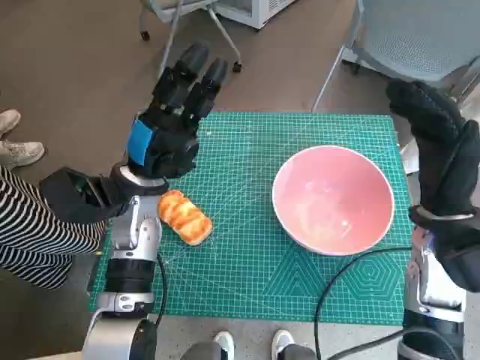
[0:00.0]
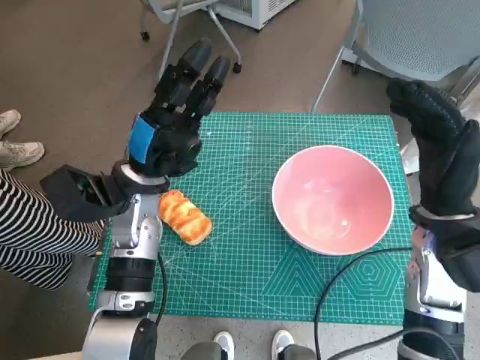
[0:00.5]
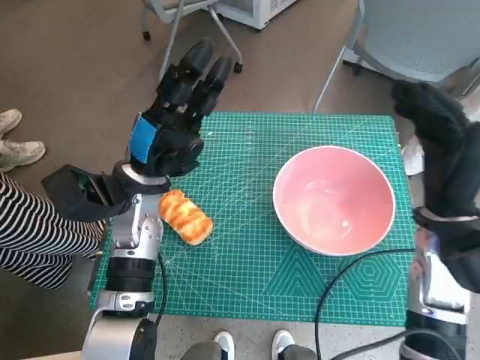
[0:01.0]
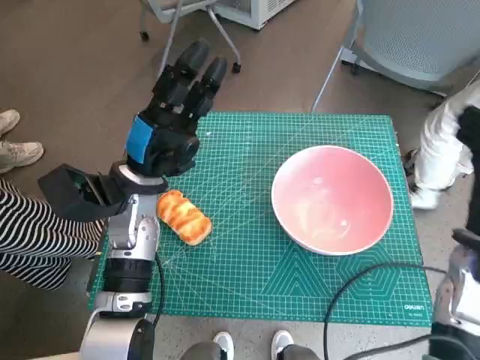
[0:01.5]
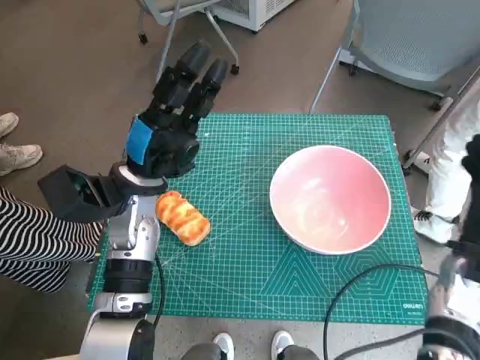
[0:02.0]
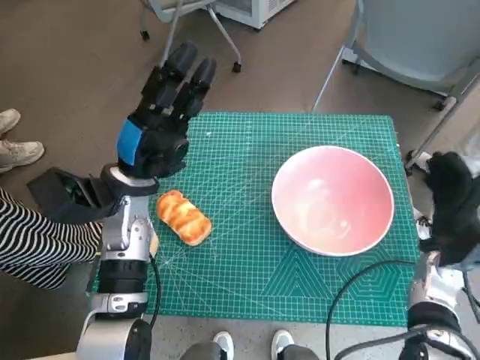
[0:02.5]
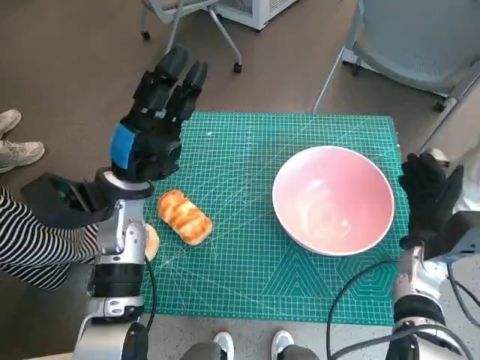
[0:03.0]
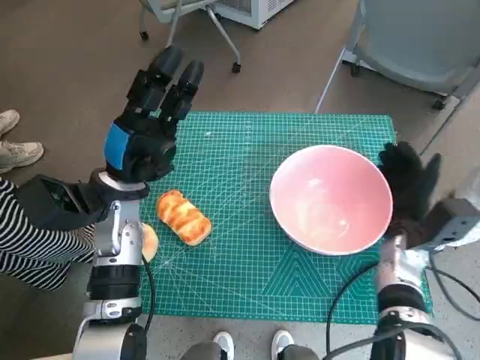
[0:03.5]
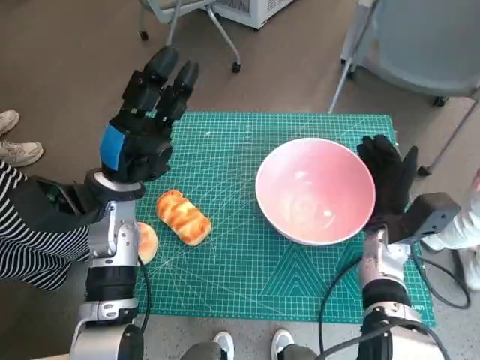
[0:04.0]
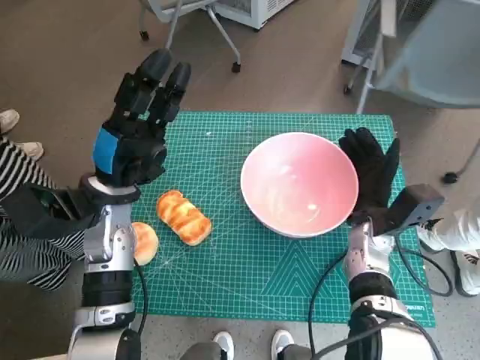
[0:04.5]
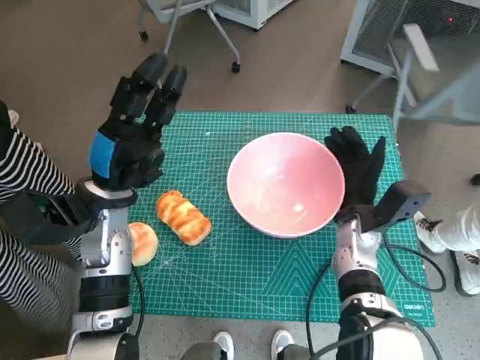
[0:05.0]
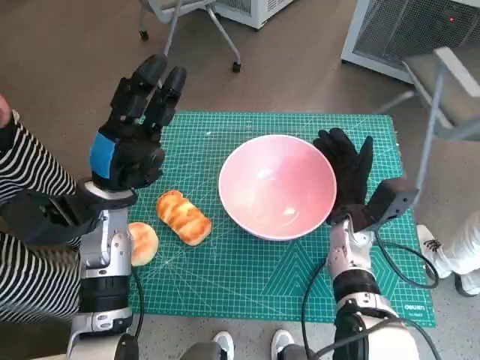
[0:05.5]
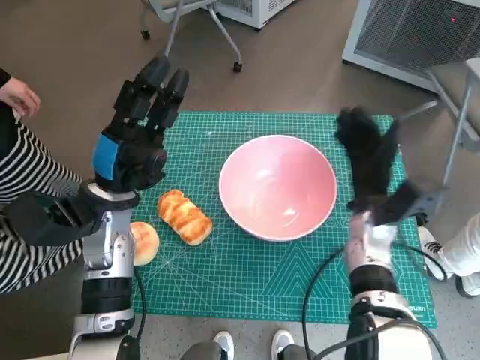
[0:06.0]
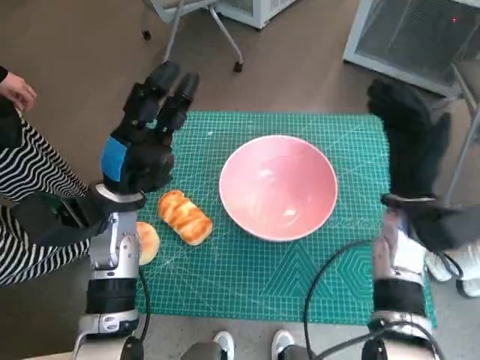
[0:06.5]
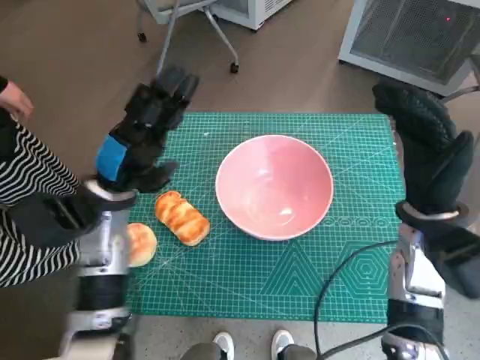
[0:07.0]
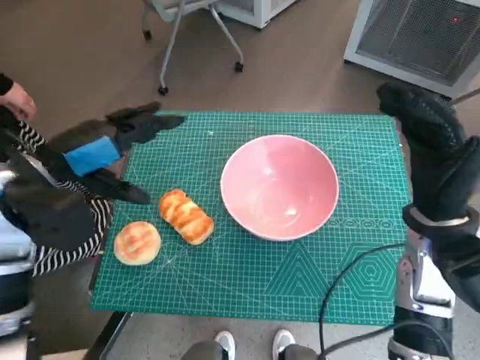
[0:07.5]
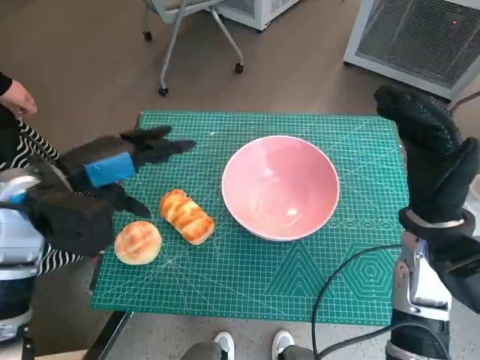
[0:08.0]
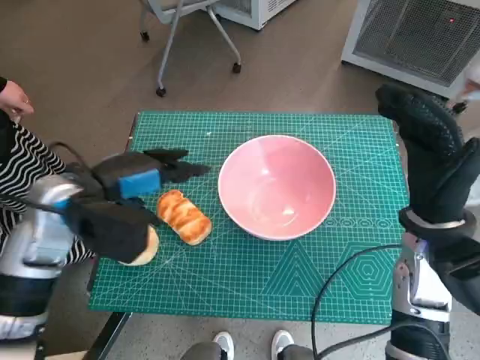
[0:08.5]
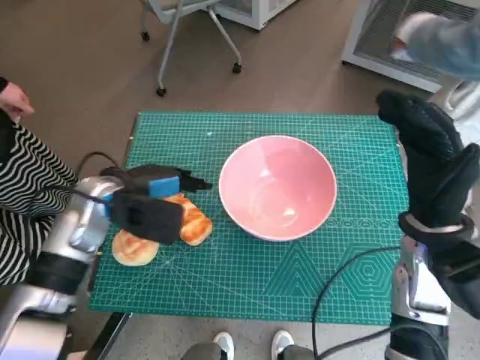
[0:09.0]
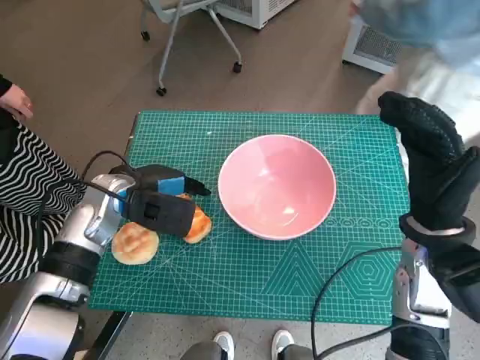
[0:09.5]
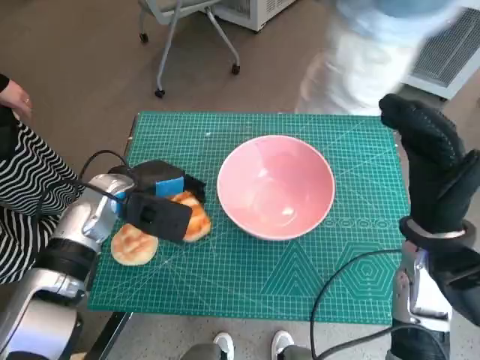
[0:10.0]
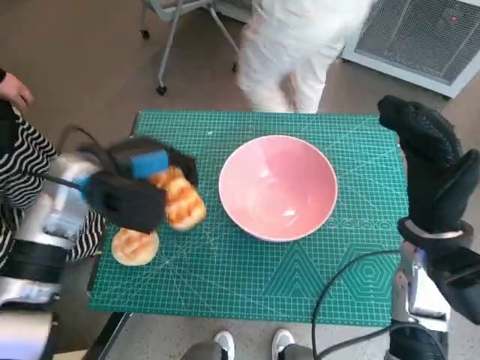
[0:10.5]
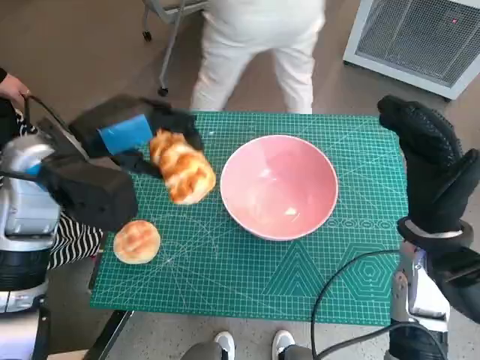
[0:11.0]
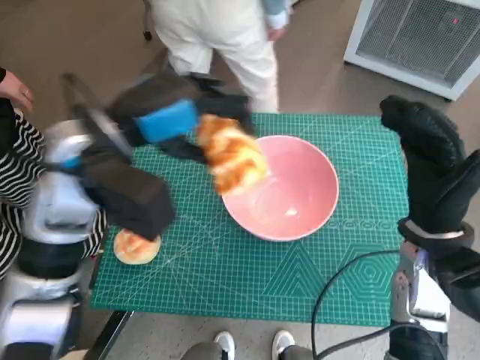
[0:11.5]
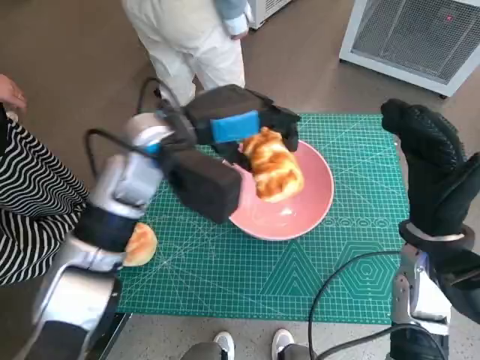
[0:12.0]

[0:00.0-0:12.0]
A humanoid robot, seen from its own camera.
Task of the whole recording: Push the bowl into the center of the table and put the bread into the bowl.
Step, 0:00.0 to 0:05.5: Move the pink bowl to the center of table with right hand.
Step, 0:06.0 to 0:09.5: Grasp the long bread with left hand.
0:02.0 to 0:04.0: The right hand travels to the left by some 10 cm.
0:06.0 to 0:08.0: The left hand is displaced upward by some 10 cm; the right hand travels upward and backward by about 10 cm.
0:08.0 to 0:10.0: The left hand is displaced downward and forward by about 10 cm.
0:10.0 to 0:12.0: The left hand moves upward and to the right, some 15 cm.

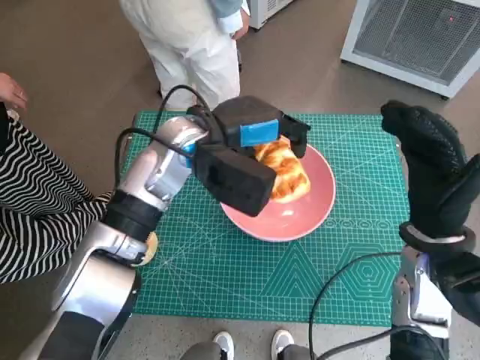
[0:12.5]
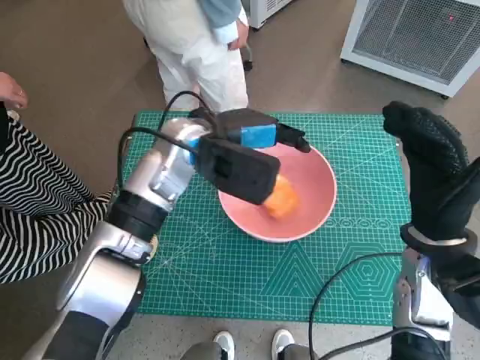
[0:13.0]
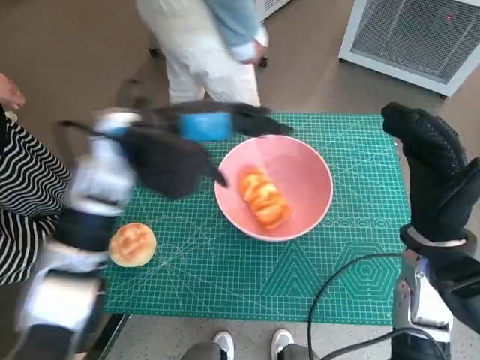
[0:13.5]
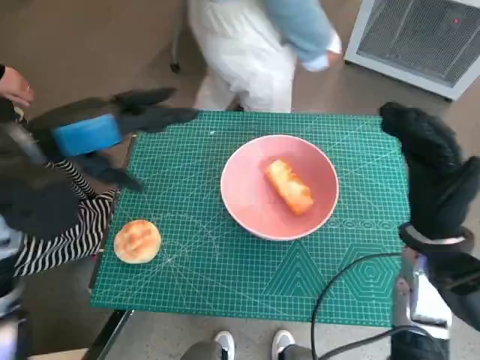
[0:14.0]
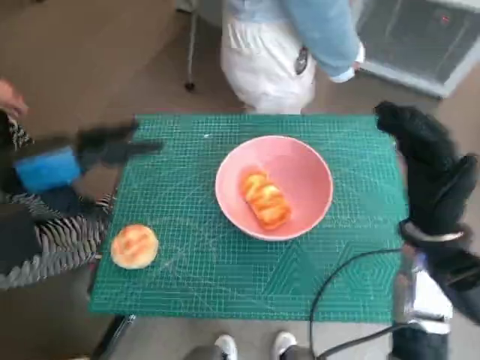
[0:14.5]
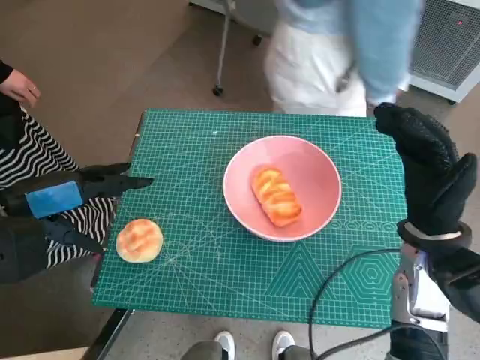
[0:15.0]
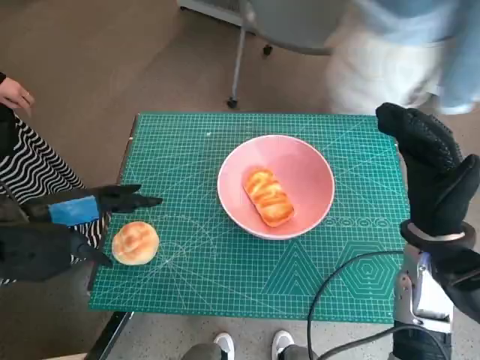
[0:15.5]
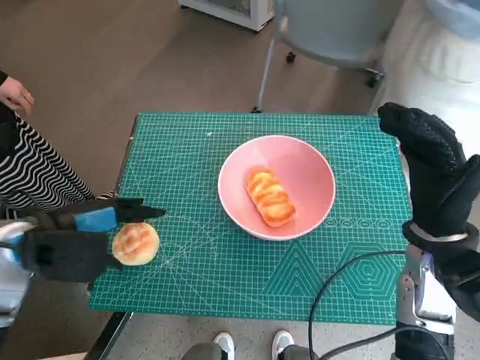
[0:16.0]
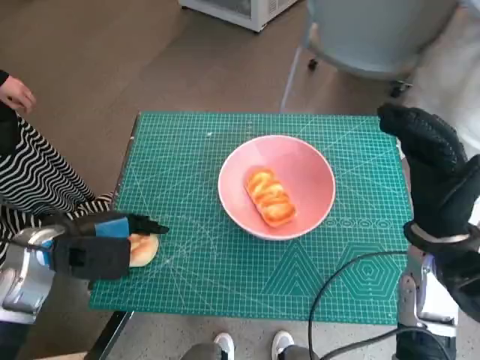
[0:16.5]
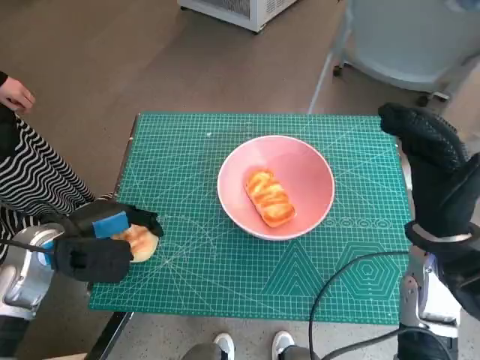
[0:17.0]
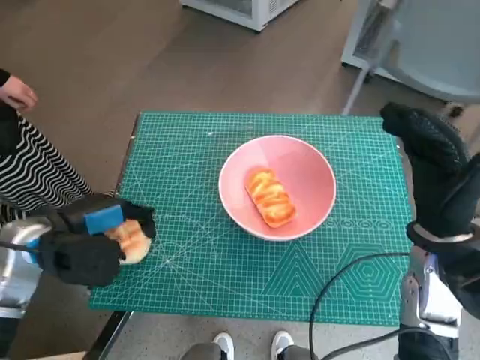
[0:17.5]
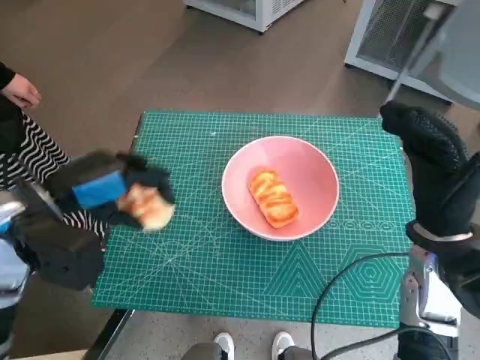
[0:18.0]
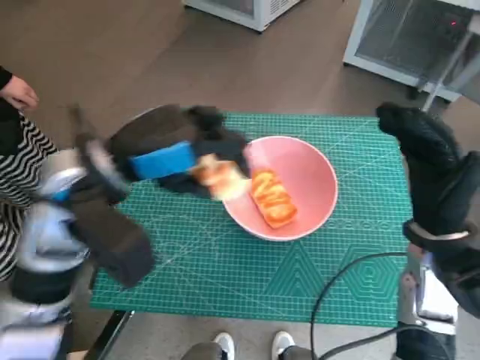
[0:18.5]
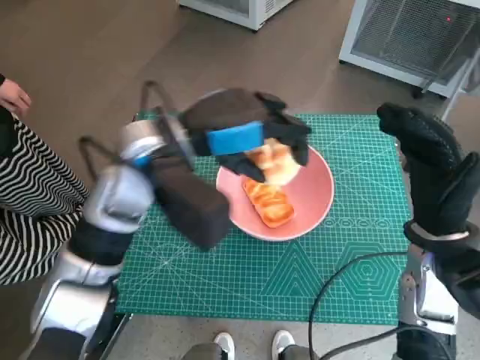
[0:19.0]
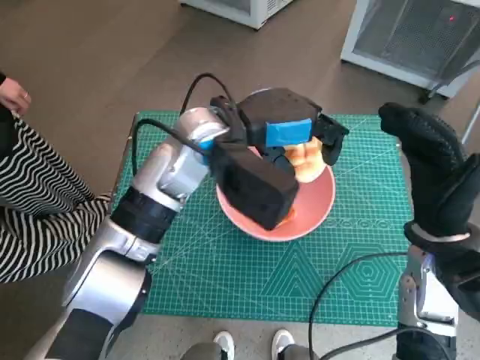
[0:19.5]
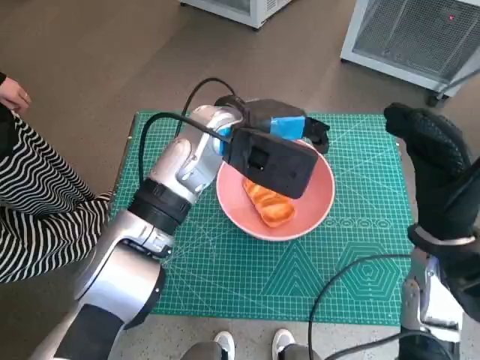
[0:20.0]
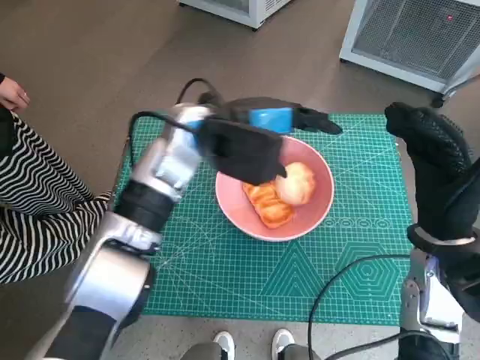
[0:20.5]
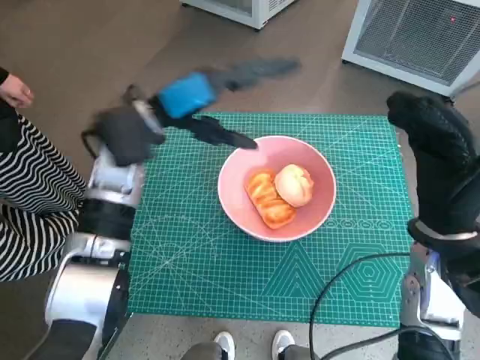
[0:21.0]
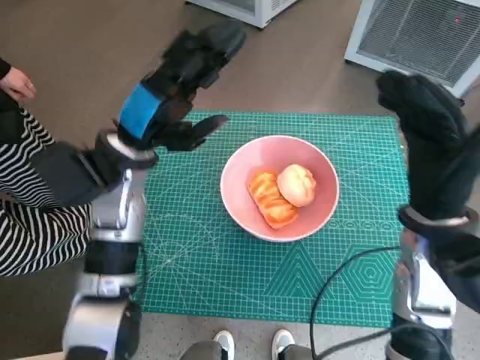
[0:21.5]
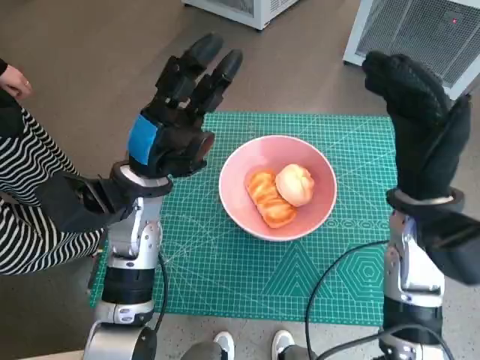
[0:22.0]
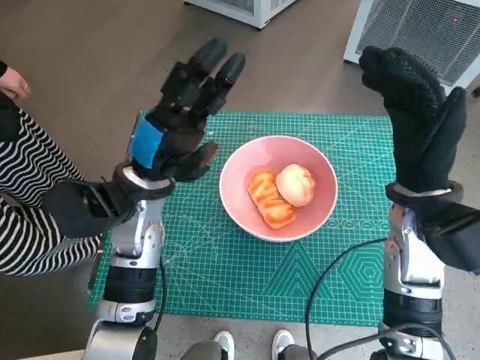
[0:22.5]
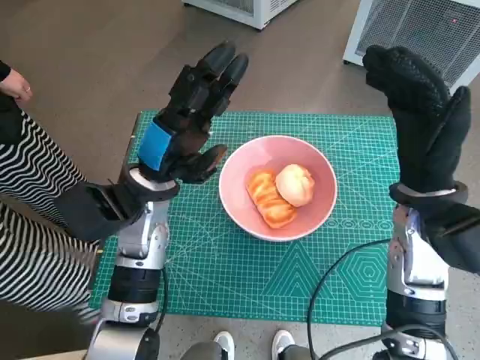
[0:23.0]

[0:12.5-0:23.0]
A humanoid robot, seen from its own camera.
Task of the whole recording: Push the bowl into the center of the table and put the bread into the bowl.
Step, 0:13.5 to 0:17.0: Grasp the round bread with left hand.
Step, 0:17.5 to 0:20.0: Place the round bread in pink bowl with left hand.
0:12.5 to 0:14.5: The left hand heads to the left and backward, covering roughly 20 cm.
0:14.5 to 0:16.5: The left hand heads downward, covering roughly 15 cm.
0:16.5 to 0:19.0: The left hand moves to the right, upward and forward, approximately 20 cm.
0:19.0 to 0:21.0: The left hand changes place by some 5 cm.
0:21.0 to 0:23.0: The left hand heads downward and backward, covering about 10 cm.

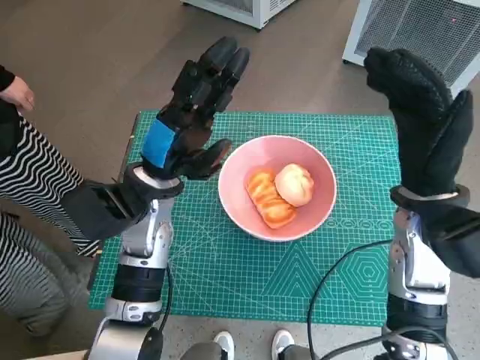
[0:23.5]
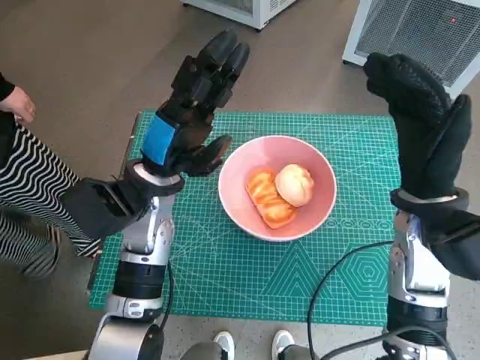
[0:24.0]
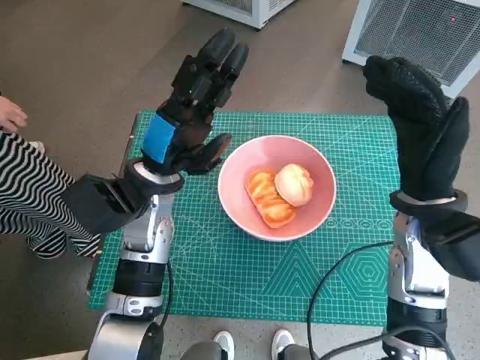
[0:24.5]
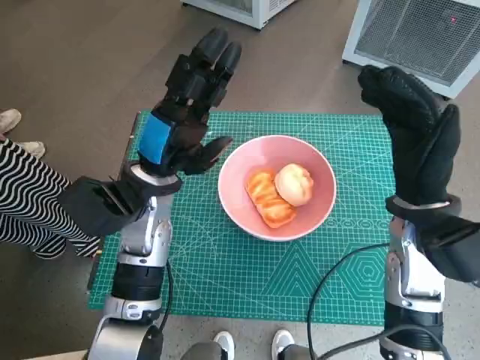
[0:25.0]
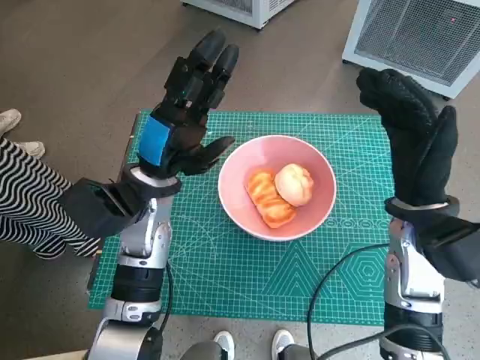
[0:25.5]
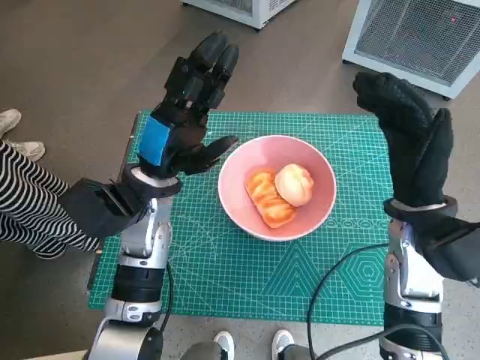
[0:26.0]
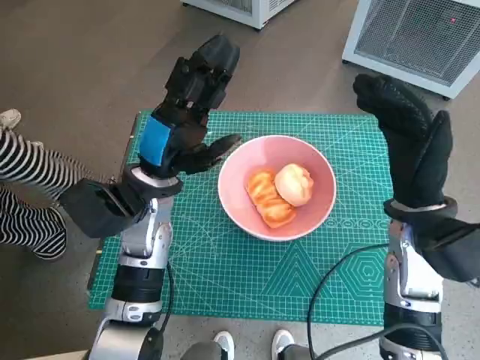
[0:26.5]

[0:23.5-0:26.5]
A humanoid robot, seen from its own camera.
Task of the whole recording: Push the bowl into the center of the table and put the bread into the bowl.
0:23.5 to 0:25.0: Neither hand changes place.
0:25.0 to 0:26.5: Both hands stay about where they are.
